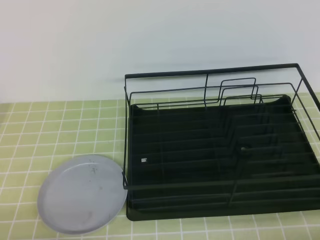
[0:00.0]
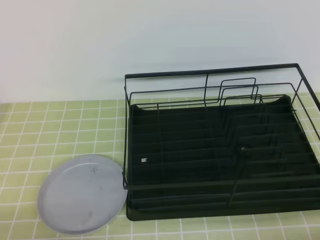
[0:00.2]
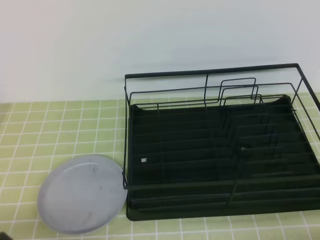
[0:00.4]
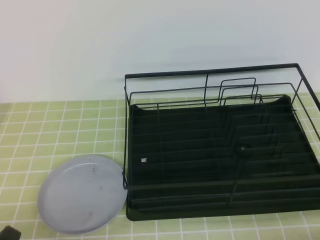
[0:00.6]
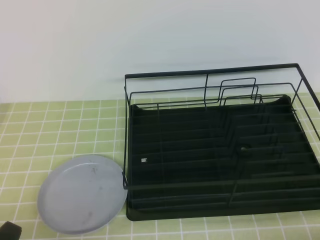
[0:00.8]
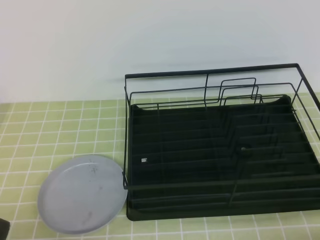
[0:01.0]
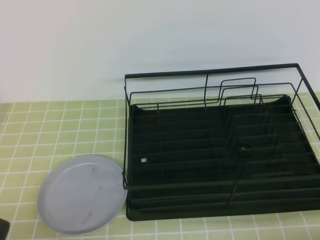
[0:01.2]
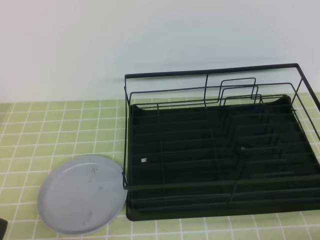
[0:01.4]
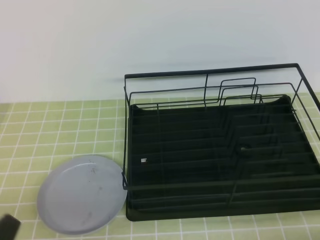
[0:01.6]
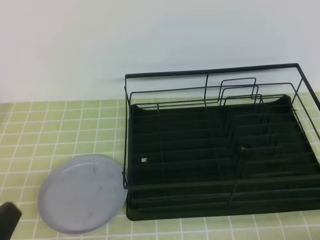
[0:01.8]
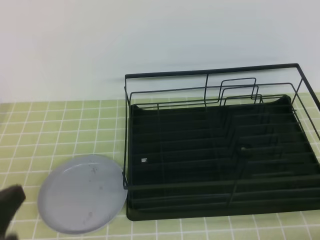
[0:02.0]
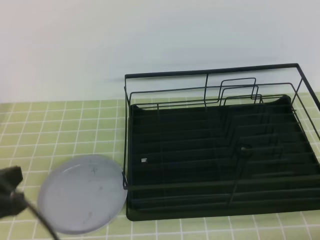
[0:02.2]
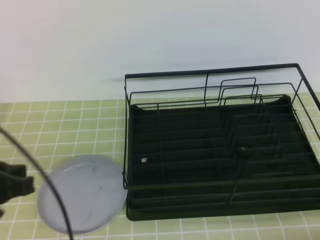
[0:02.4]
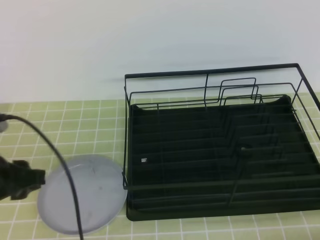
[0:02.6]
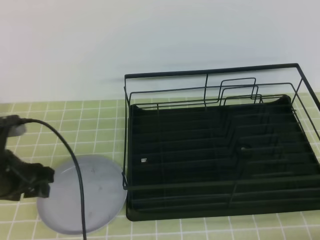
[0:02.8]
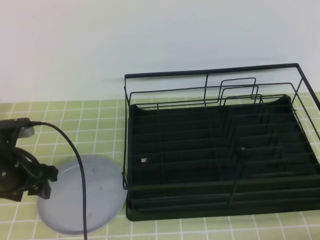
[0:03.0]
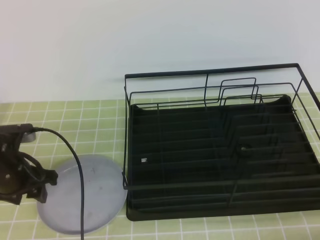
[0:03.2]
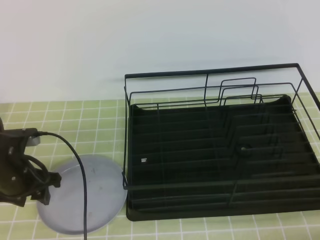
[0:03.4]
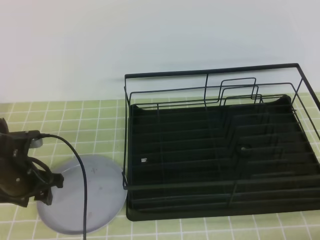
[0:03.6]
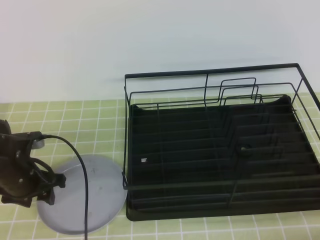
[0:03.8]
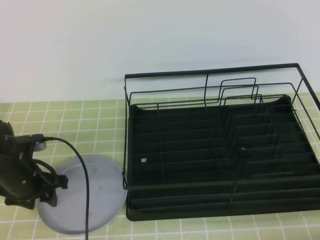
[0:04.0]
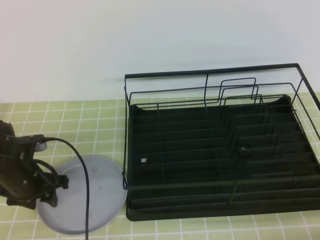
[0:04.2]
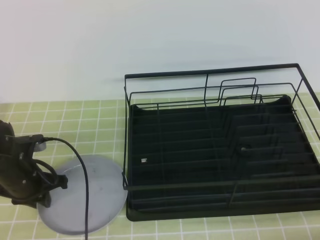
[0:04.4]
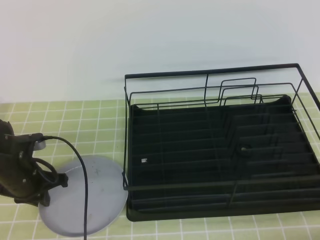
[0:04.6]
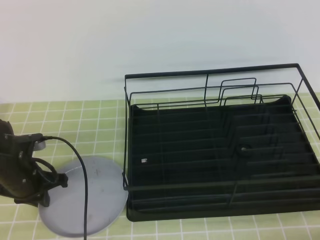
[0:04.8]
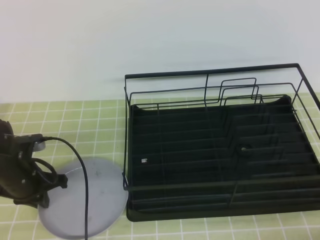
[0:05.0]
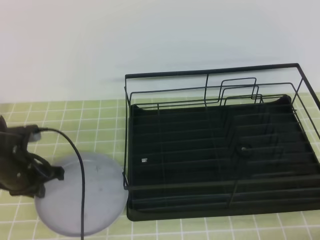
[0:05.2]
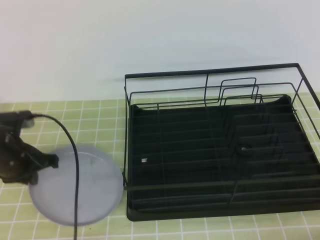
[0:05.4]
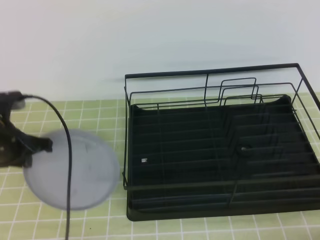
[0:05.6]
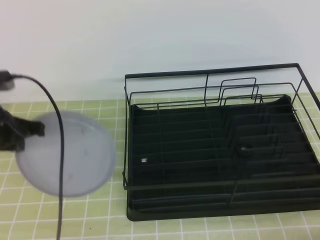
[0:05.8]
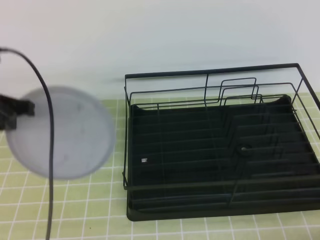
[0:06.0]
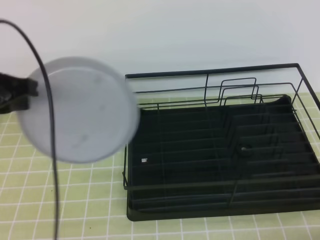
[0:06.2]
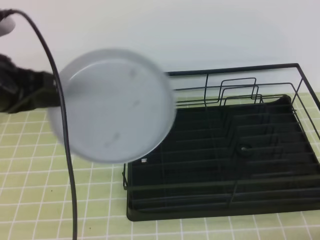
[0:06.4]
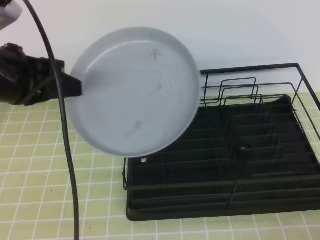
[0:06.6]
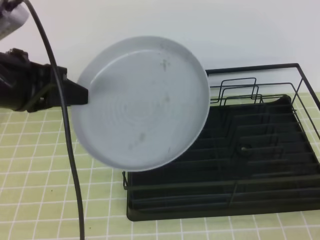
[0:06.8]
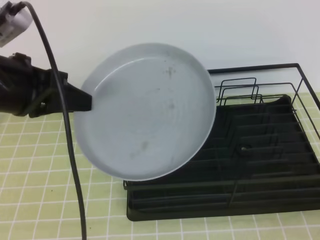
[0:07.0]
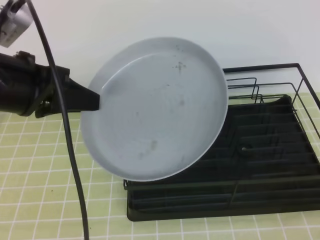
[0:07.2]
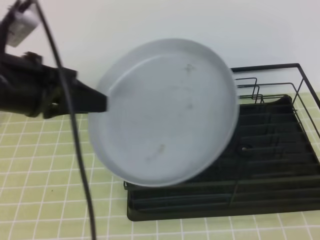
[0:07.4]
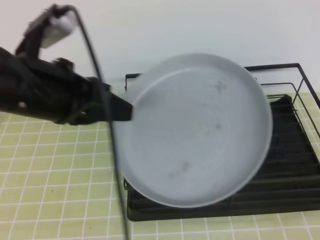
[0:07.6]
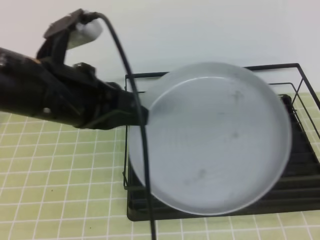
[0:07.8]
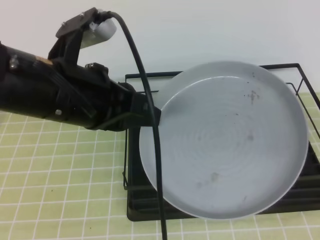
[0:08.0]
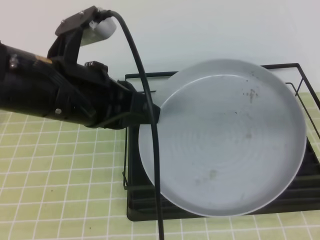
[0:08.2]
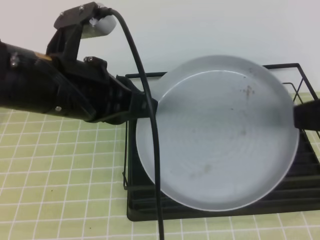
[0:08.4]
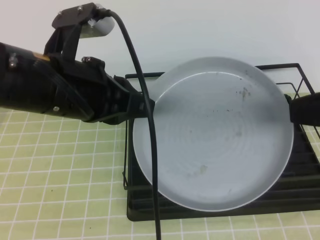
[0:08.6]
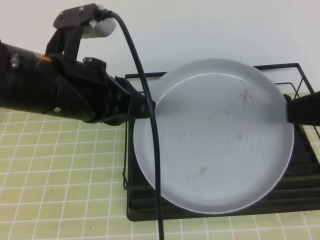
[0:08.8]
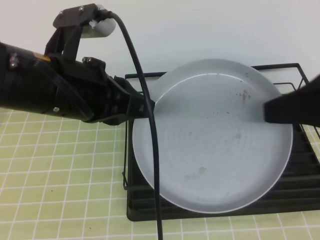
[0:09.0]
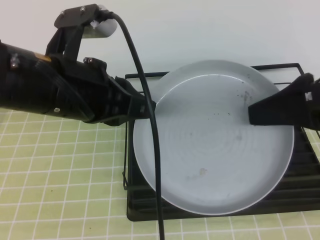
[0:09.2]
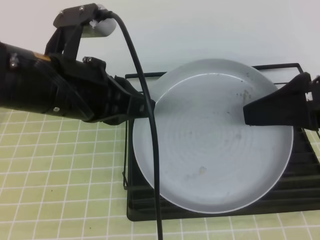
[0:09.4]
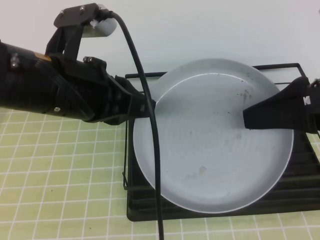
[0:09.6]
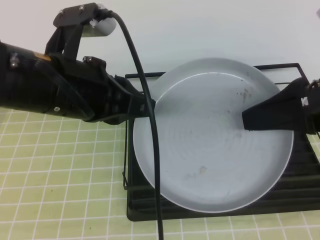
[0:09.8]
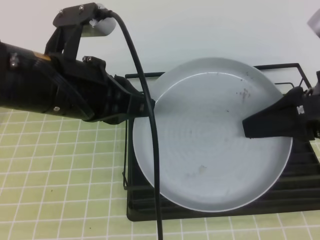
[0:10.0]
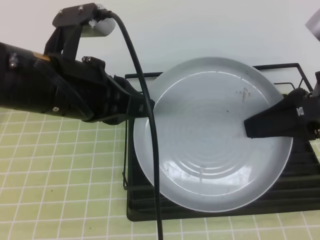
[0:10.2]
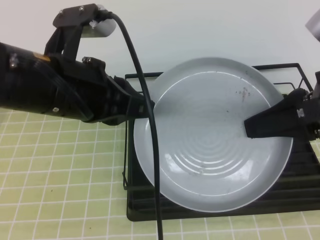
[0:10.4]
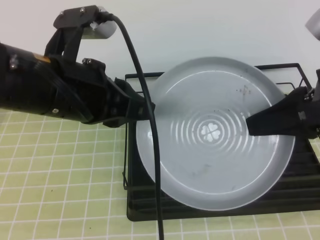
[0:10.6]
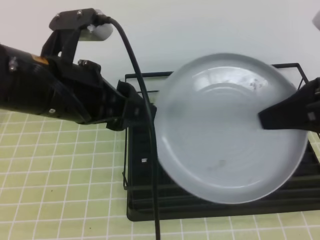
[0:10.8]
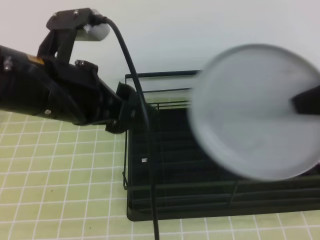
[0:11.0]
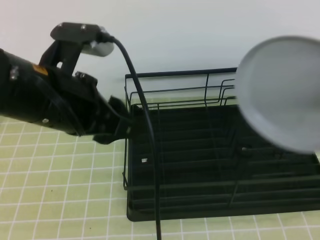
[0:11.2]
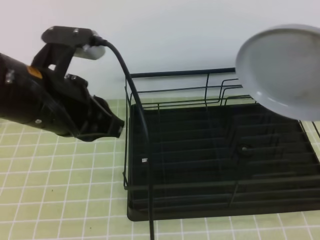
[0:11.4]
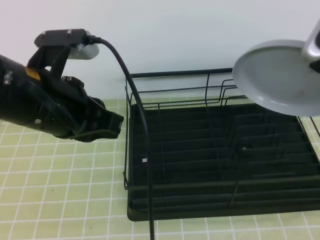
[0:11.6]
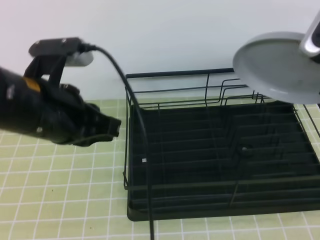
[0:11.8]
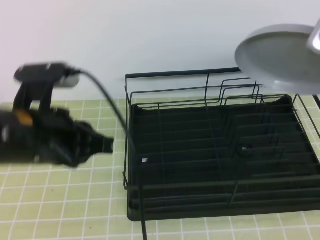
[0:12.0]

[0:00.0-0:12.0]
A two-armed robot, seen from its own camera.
Step, 0:00.0 to 0:04.0: Left grab the gray plate.
Step, 0:04.2 to 0:08.6: Right receive the plate.
0:01.6 to 0:03.0: The left gripper is displaced forward by roughly 20 cm, and opens its fingers.
0:03.0 to 0:04.4: The left gripper moves downward, about 5 cm, and closes its fingers.
0:04.4 to 0:06.0: The left gripper is displaced upward by some 20 cm, and closes.
0:06.0 to 0:07.6: The left gripper shifts approximately 10 cm to the right, upward and backward, while the right gripper goes approximately 15 cm upward.
0:07.6 to 0:09.0: The right gripper goes some 15 cm forward and to the left, and opens.
0:09.0 to 0:10.4: The right gripper closes up.
0:10.4 to 0:12.0: The left gripper heads downward, covering roughly 5 cm, and opens and closes again. The right gripper moves forward, about 5 cm.

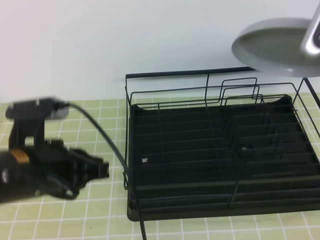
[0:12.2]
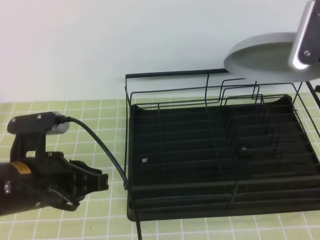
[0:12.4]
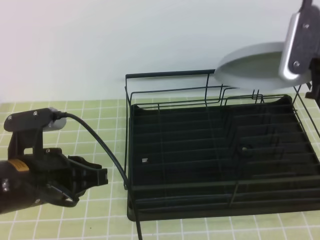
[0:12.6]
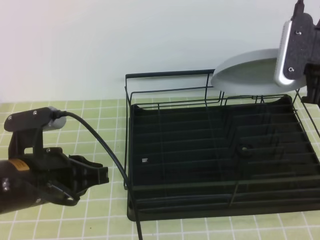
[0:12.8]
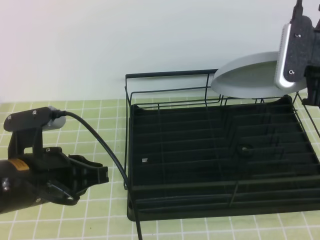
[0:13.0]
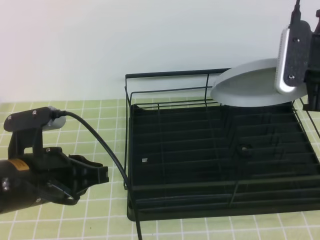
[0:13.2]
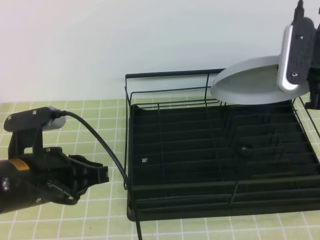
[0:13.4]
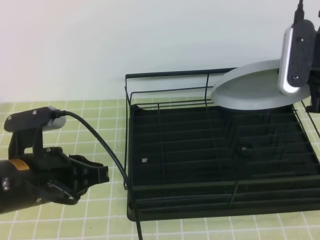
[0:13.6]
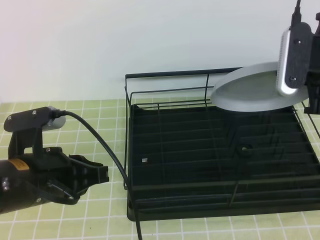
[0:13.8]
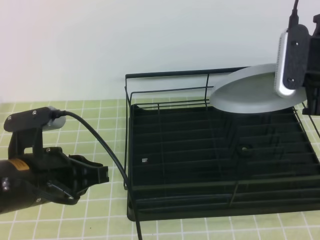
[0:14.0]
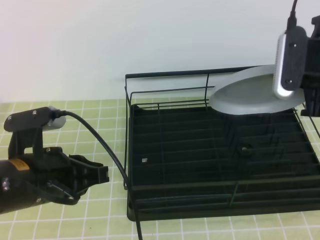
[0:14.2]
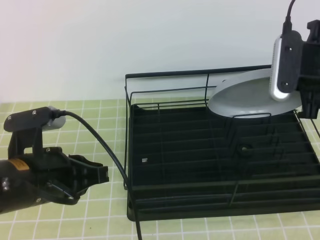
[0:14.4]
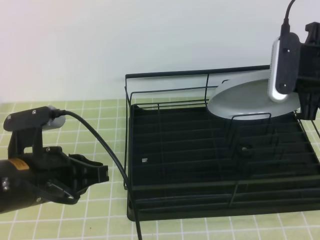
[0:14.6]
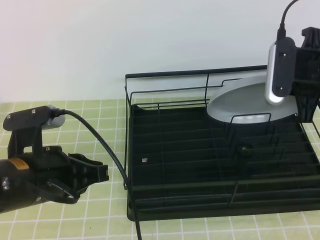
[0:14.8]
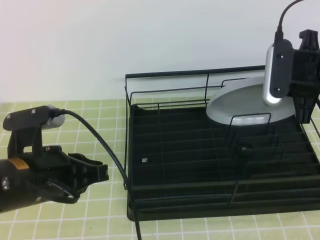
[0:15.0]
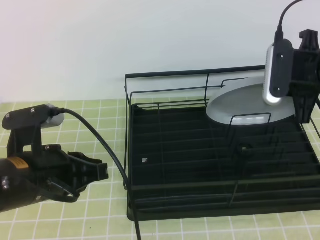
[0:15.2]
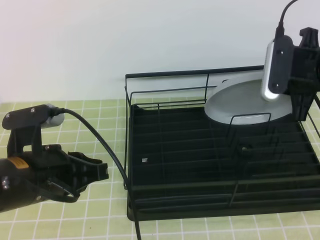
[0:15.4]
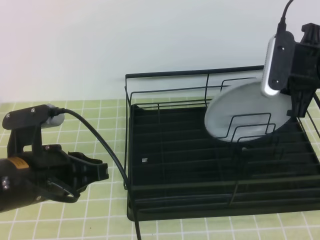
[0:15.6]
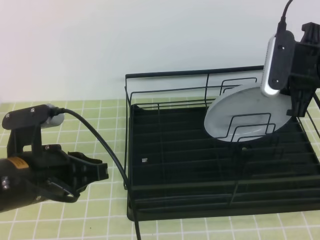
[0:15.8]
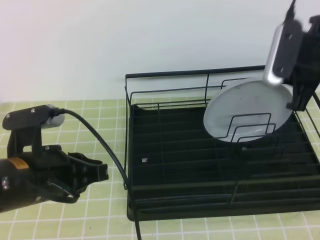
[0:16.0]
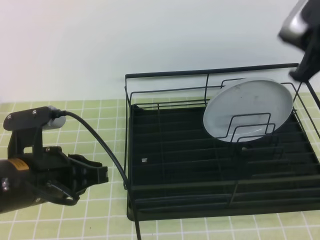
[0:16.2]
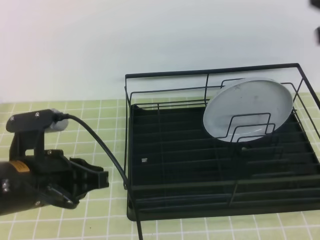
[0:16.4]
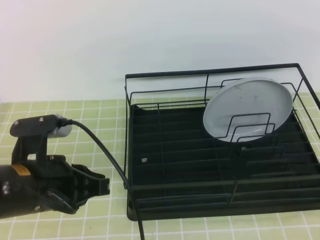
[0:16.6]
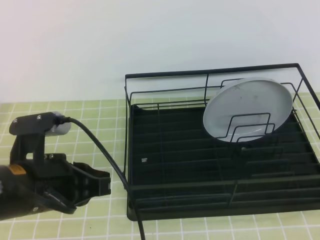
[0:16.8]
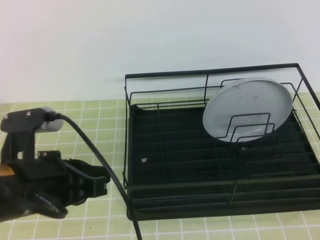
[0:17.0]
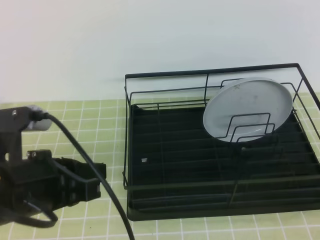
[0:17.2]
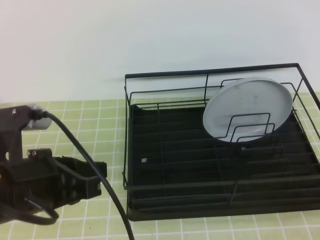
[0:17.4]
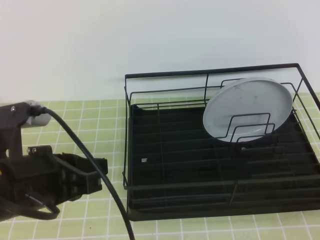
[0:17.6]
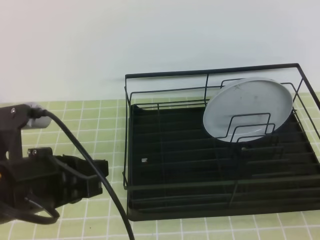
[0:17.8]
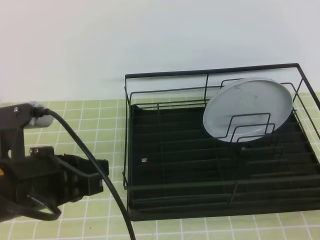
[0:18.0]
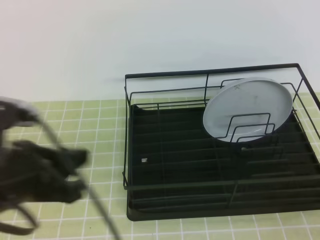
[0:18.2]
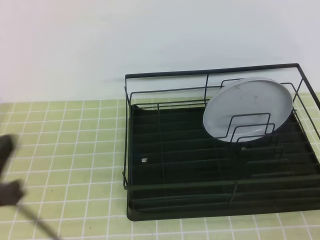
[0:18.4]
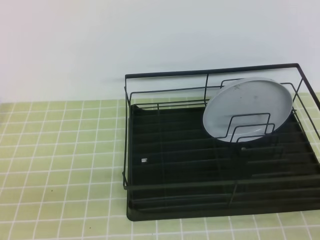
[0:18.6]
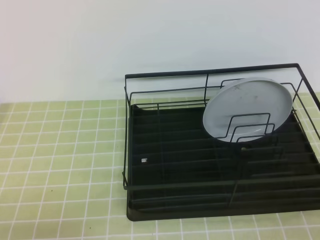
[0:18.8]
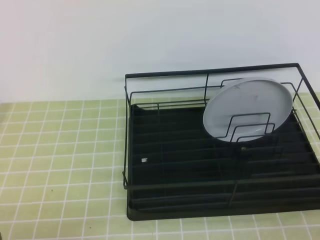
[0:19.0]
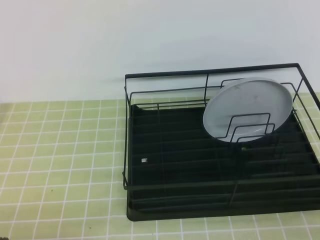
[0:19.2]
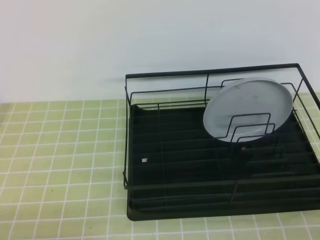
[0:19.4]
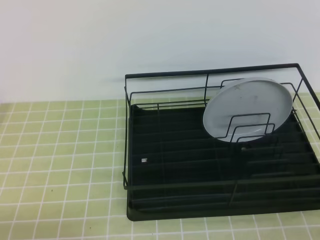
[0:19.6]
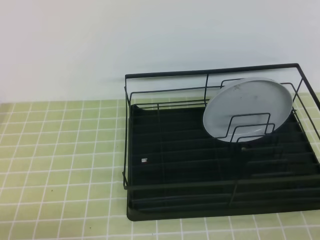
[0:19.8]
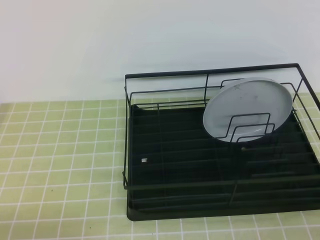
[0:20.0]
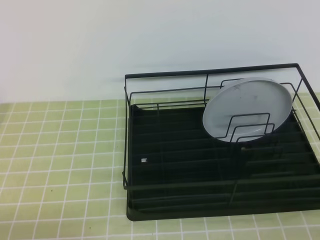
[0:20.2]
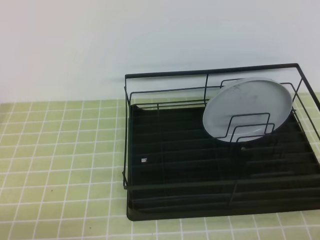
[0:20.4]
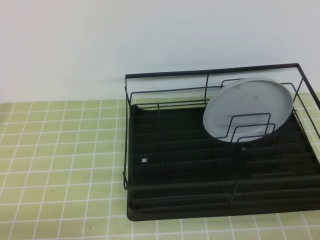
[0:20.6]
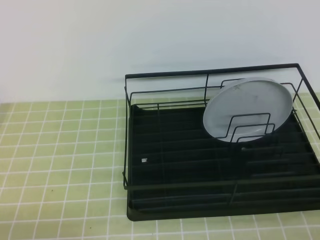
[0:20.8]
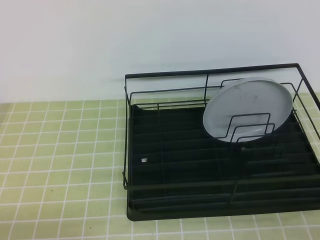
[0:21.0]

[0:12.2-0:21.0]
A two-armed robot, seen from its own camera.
0:12.2 to 0:13.6: There are only small adjustments of the grippers.
0:13.6 to 0:15.2: The grippers stay close to where they were, moving slightly.
0:15.2 to 0:16.6: The right gripper is displaced upward and backward by about 20 cm, and opens, then closes once more.
0:16.6 to 0:18.0: The right gripper shifts some 25 cm downward and backward.
0:18.0 to 0:19.6: The left gripper moves downward, backward and to the left, about 20 cm.
